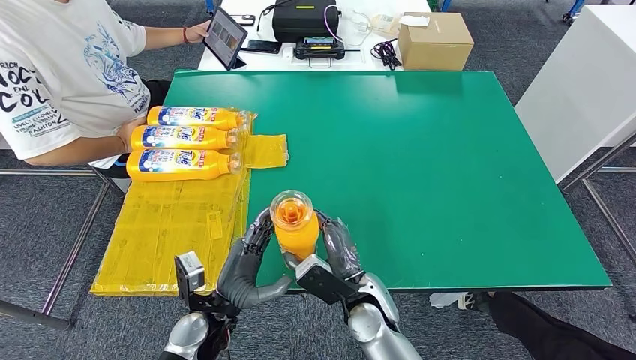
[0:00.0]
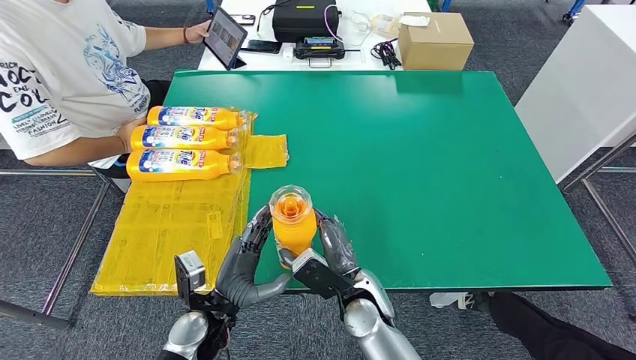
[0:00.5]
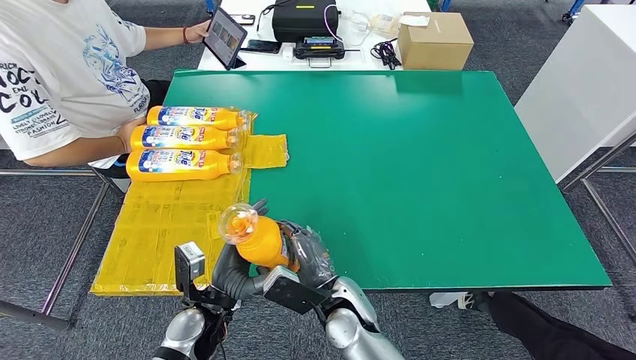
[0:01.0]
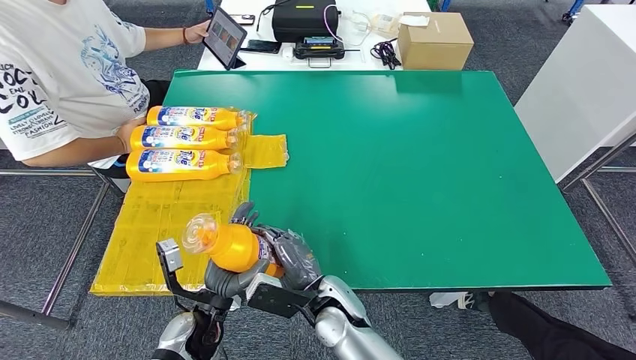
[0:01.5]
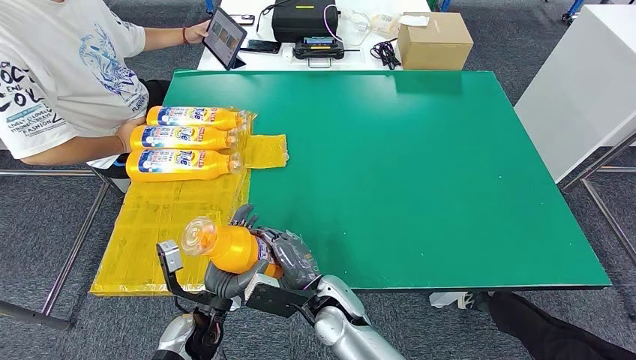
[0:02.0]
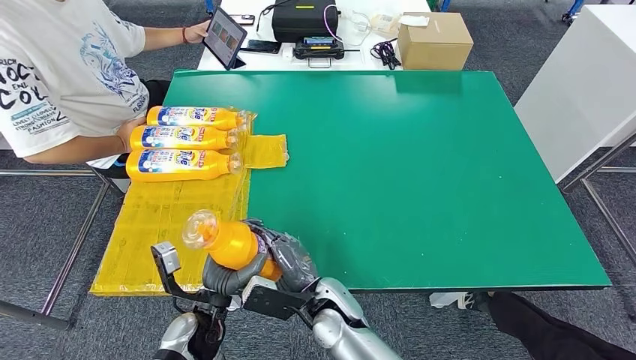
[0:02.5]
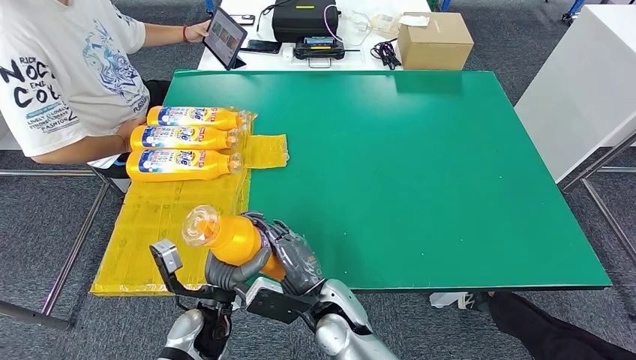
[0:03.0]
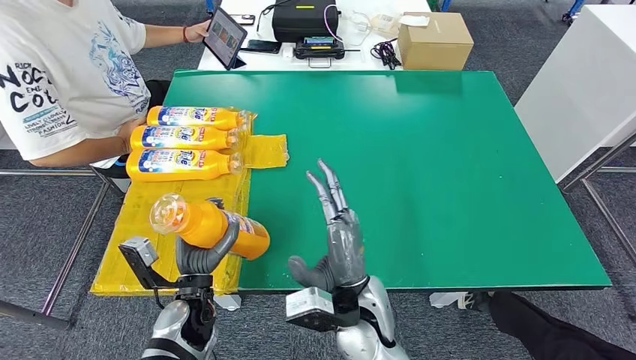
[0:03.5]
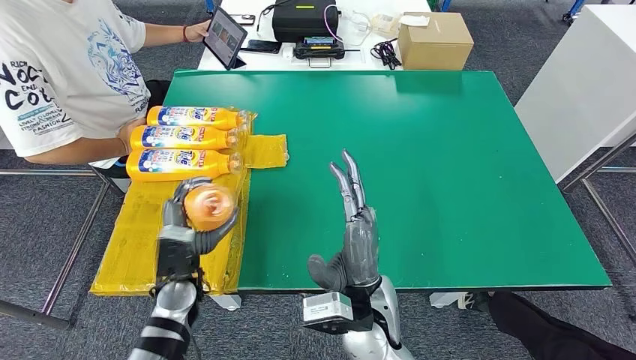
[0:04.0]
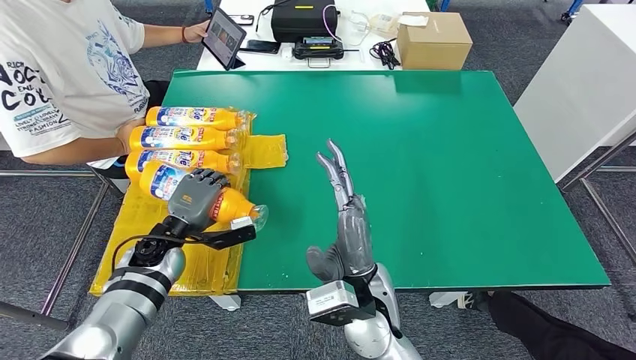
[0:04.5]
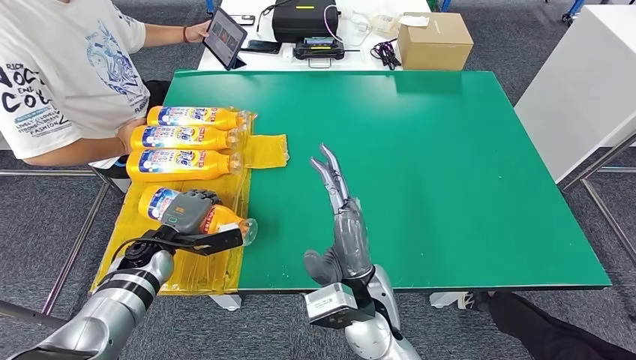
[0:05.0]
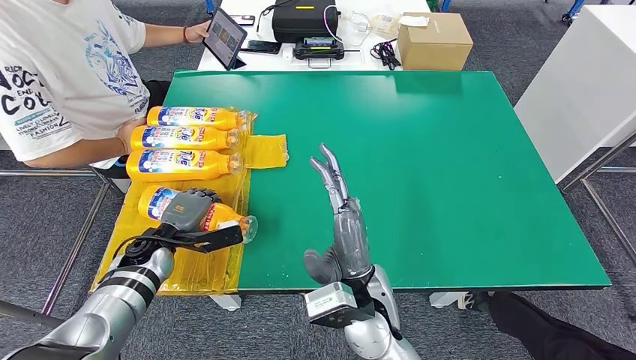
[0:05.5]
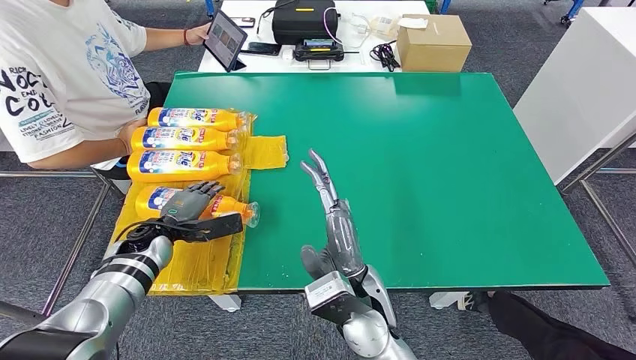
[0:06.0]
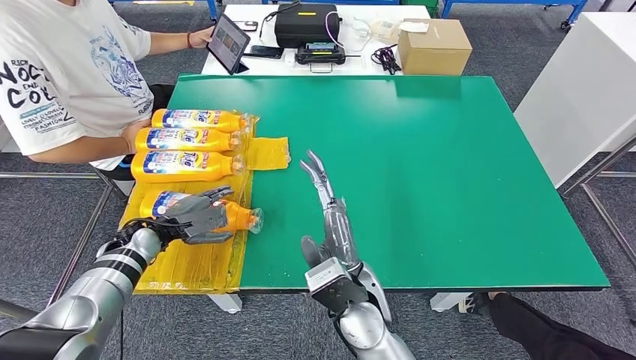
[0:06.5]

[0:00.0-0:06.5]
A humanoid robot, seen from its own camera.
Step, 0:00.0 to 0:06.5: Flip the fast-moving consumer goods bottle to the front side.
0:00.0 to 0:02.0: The right hand moves to the left, approximately 5 cm.
0:02.0 to 0:04.5: The right hand shifts about 10 cm upward. The left hand is displaced forward, to the left and upward by about 15 cm.
